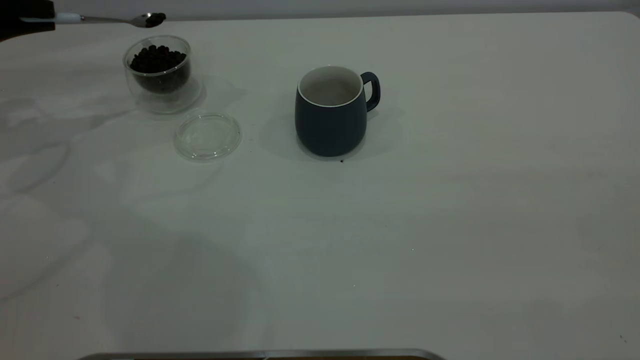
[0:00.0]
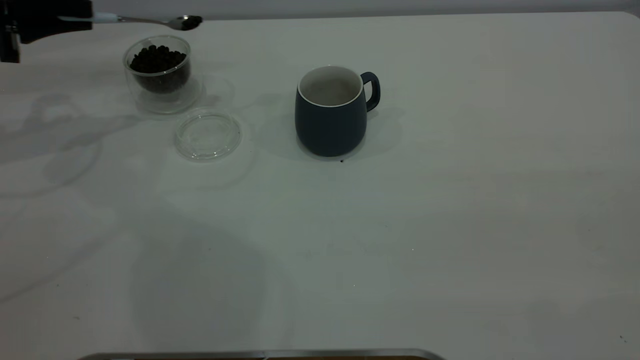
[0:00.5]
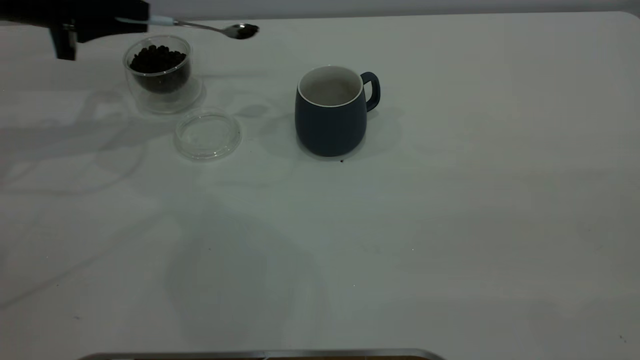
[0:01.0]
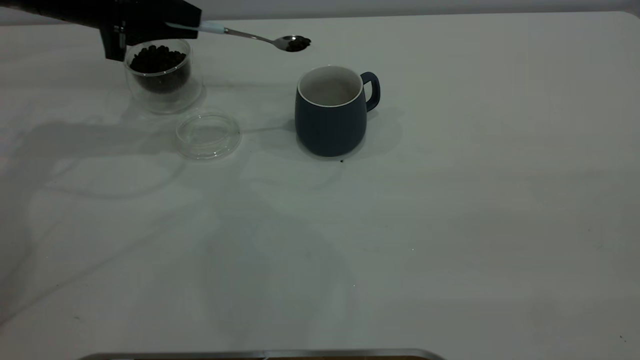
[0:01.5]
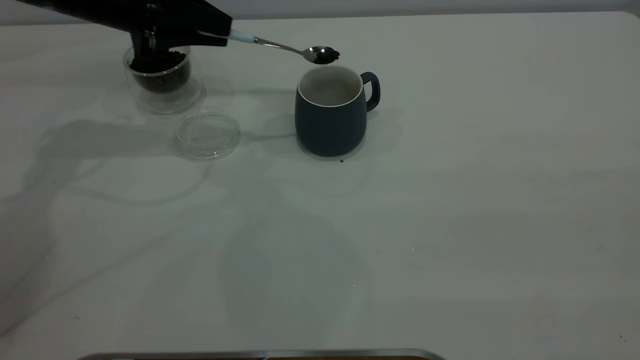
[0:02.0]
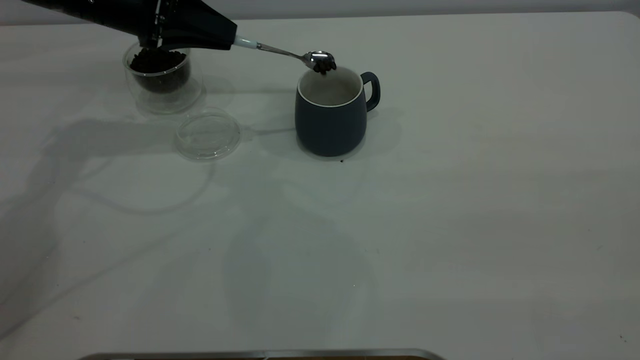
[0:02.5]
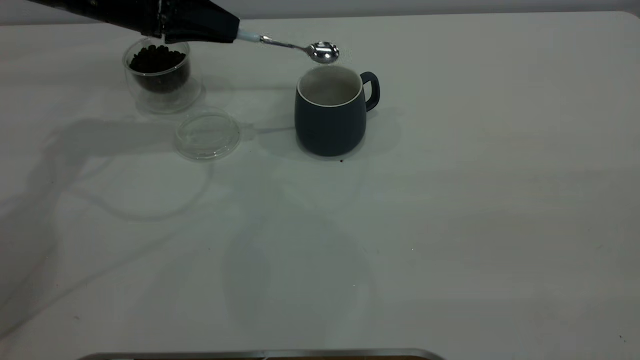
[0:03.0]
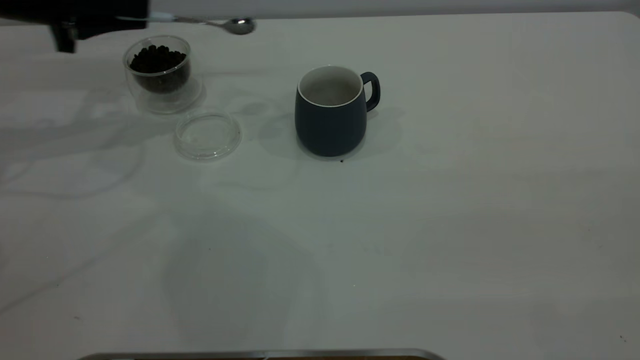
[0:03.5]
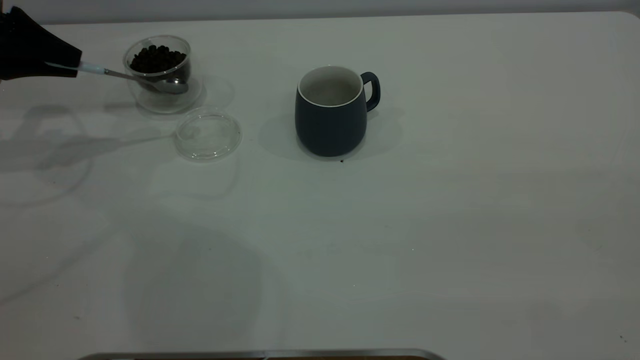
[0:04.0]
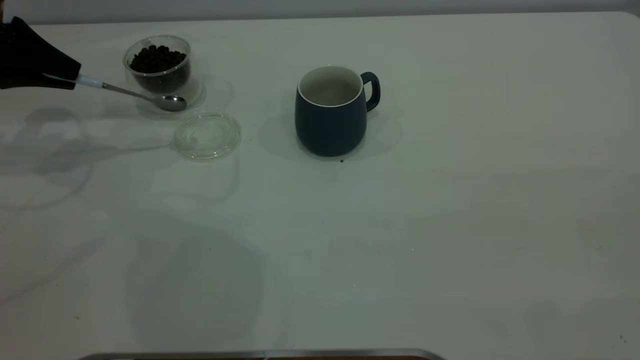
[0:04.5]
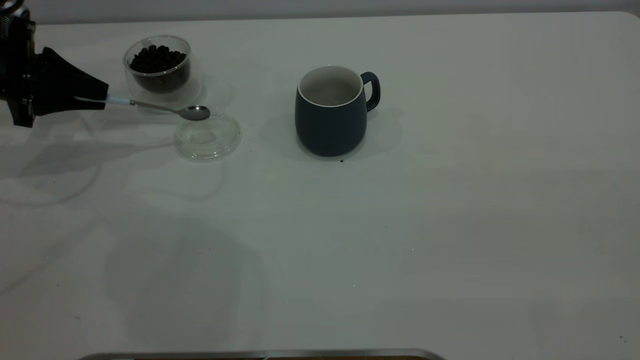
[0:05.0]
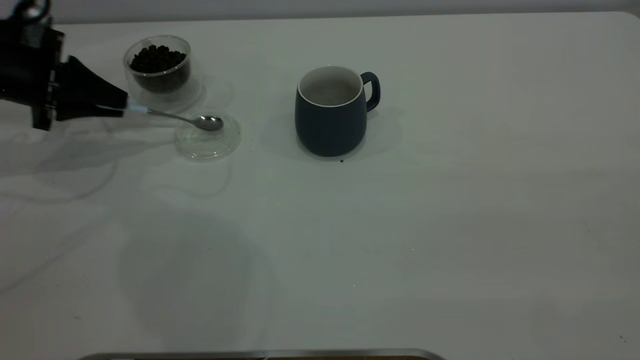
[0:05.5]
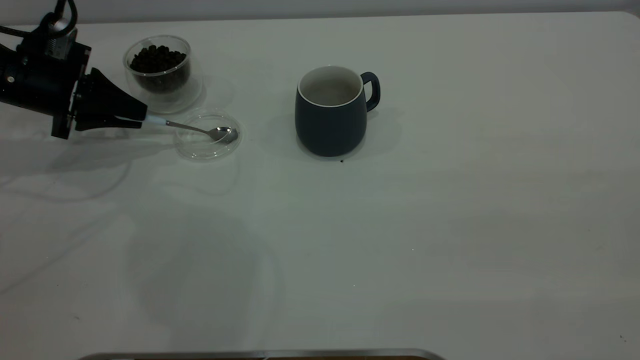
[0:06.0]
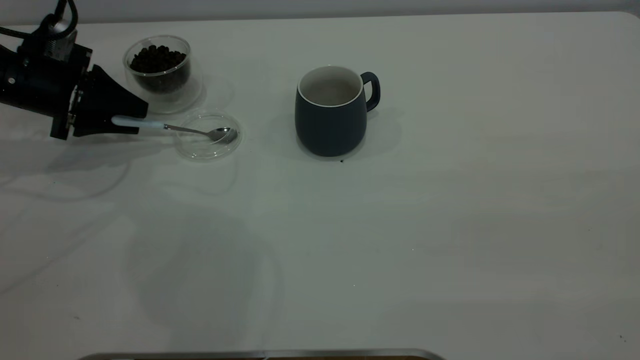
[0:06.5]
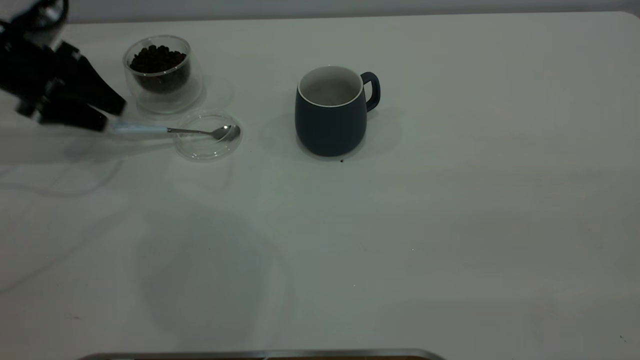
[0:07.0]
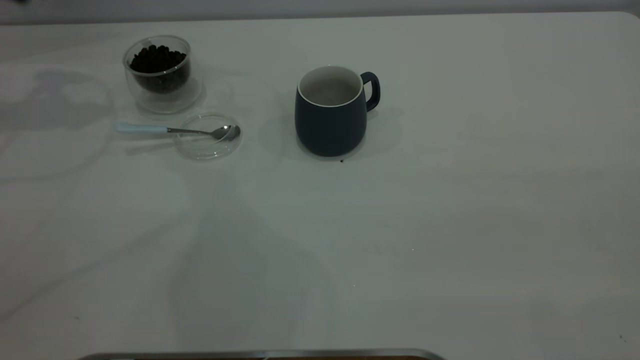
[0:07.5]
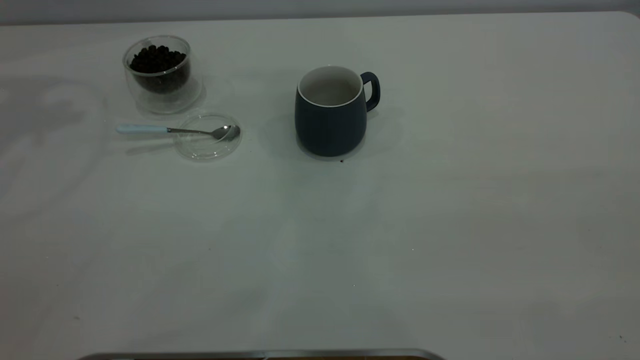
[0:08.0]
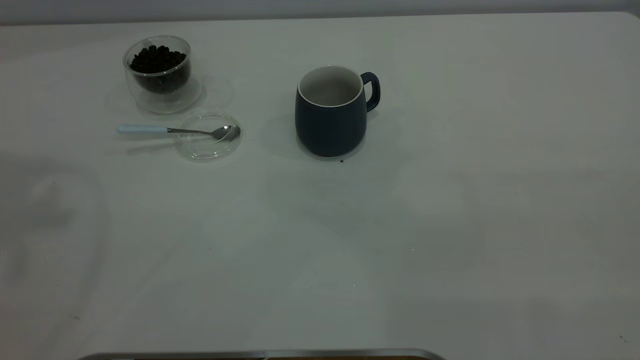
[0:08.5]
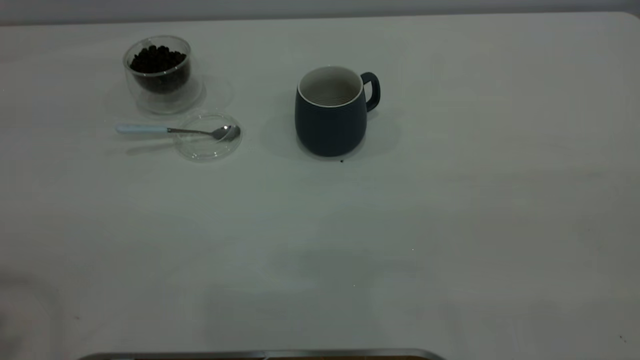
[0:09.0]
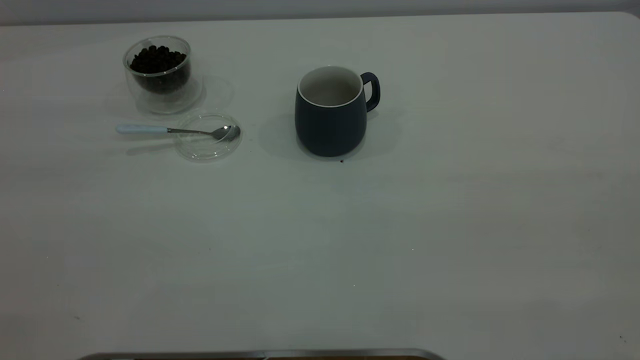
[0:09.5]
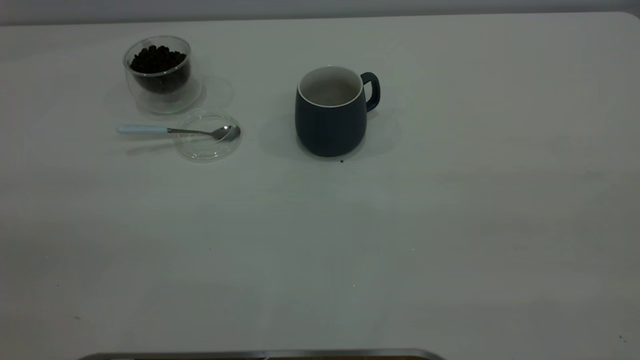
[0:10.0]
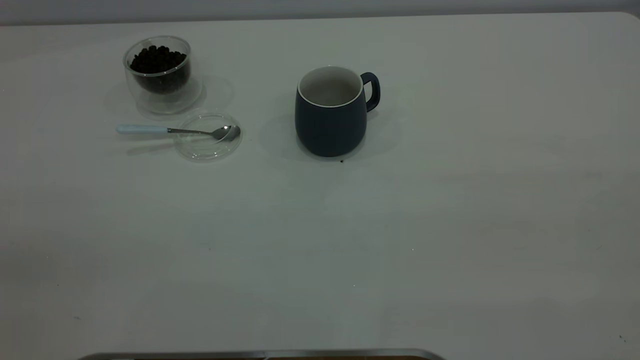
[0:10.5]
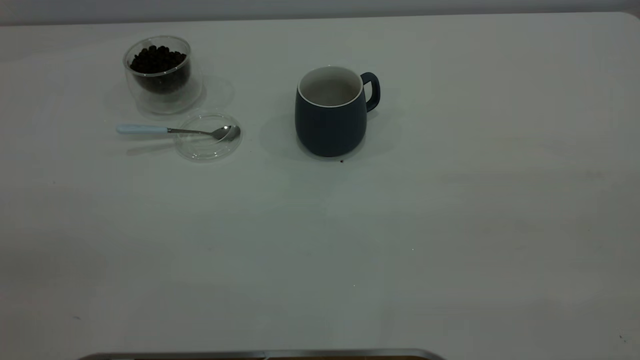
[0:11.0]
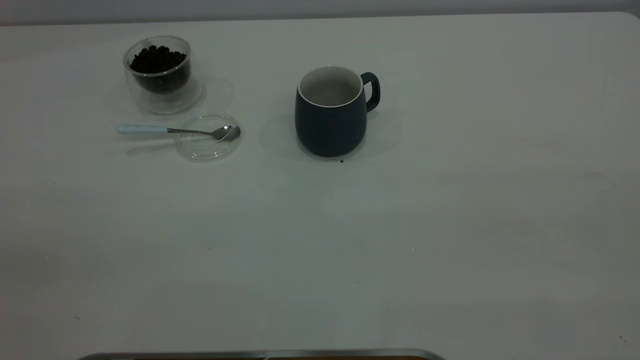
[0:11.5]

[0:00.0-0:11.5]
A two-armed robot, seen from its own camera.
Task of the whole recording: the right gripper place the grey cup in the center of the table, the left gripper take the blue spoon from the cup lid and scoop out the coffee beans from the coffee cup and put them into the grey cup, the left gripper put the spoon back into the cup lid.
Step, 0:00.0 to 0:03.0: Scoop a spoonful of beans into the cup.
Step, 0:03.5 to 0:07.0: Place the spoon back in its original place.
0:00.0 to 0:02.0: The left gripper travels to the right by roughly 20 cm.
0:02.0 to 0:04.0: The left gripper shifts approximately 15 cm to the left.
0:04.0 to 0:06.0: The left gripper moves downward, roughly 5 cm.
0:06.0 to 0:07.5: The left gripper moves upward, about 20 cm, and opens.
